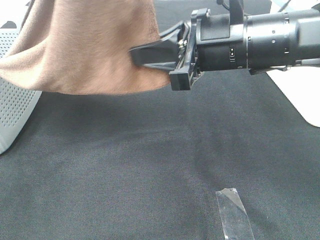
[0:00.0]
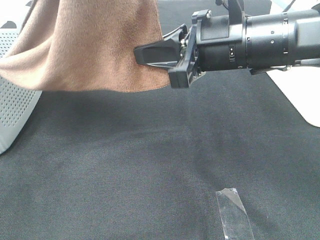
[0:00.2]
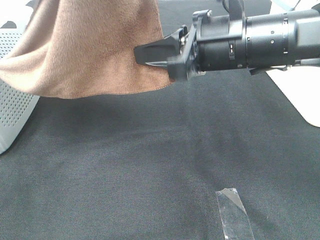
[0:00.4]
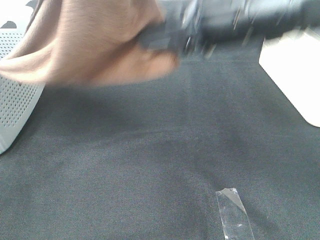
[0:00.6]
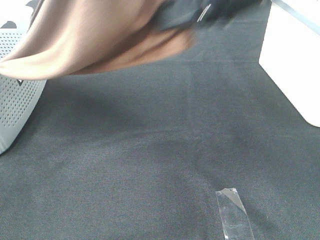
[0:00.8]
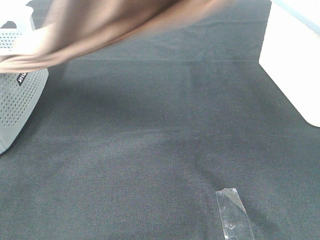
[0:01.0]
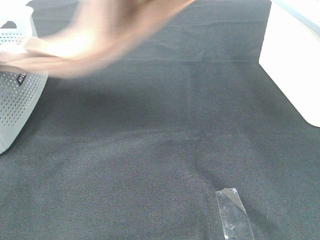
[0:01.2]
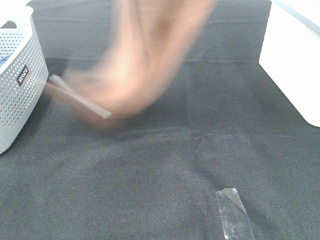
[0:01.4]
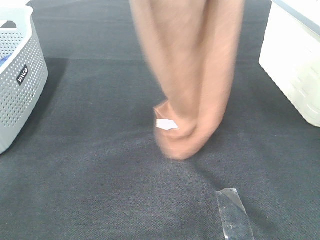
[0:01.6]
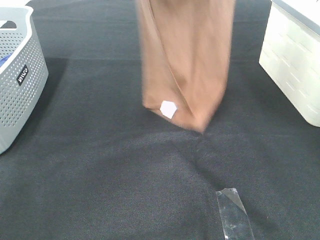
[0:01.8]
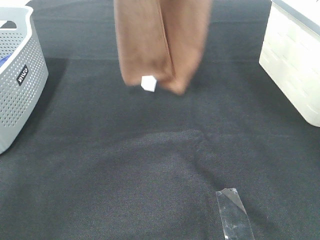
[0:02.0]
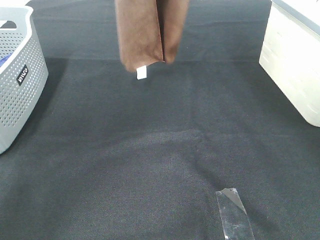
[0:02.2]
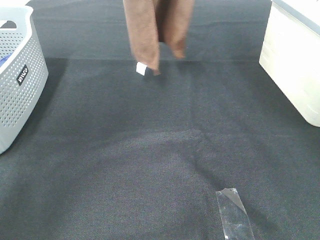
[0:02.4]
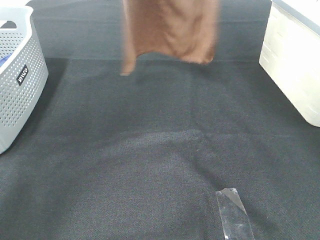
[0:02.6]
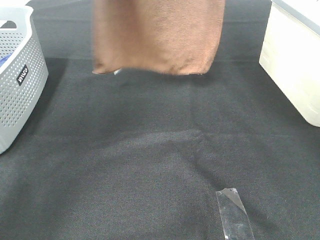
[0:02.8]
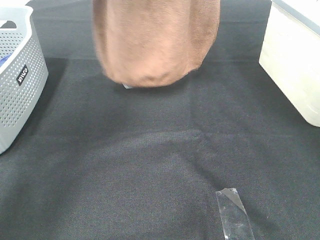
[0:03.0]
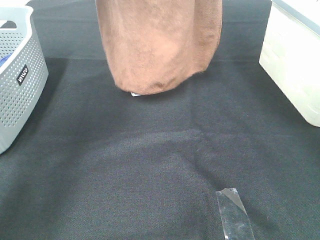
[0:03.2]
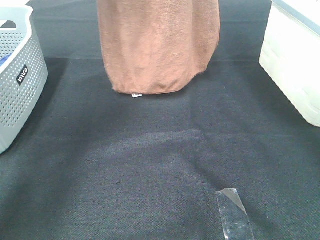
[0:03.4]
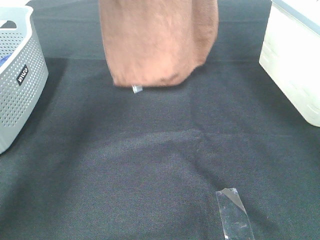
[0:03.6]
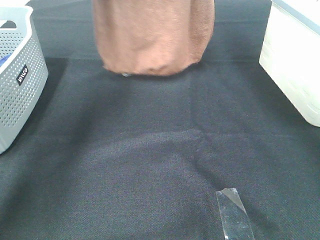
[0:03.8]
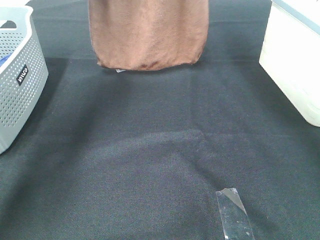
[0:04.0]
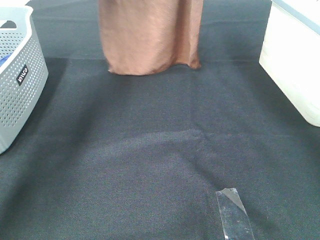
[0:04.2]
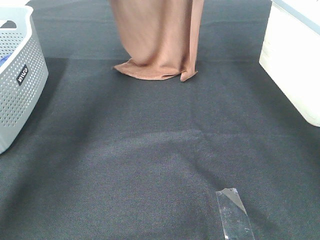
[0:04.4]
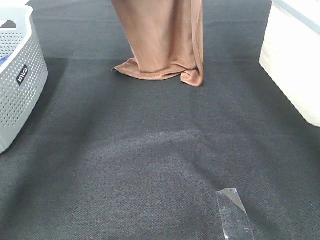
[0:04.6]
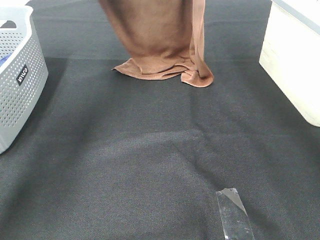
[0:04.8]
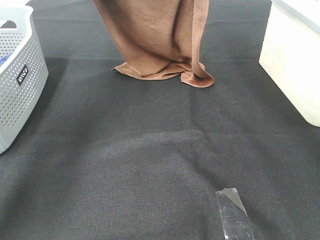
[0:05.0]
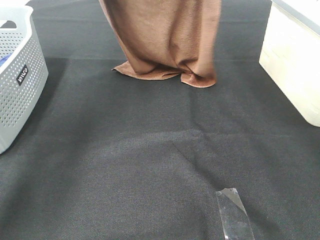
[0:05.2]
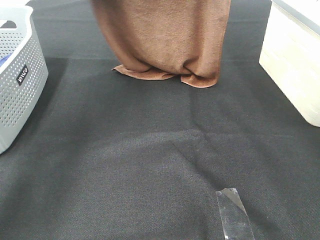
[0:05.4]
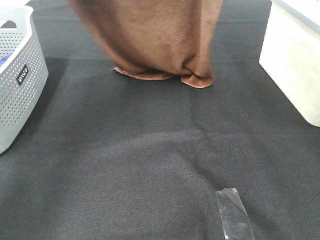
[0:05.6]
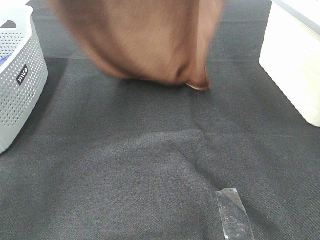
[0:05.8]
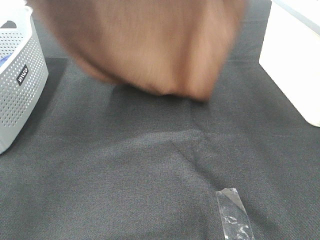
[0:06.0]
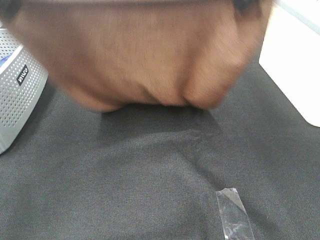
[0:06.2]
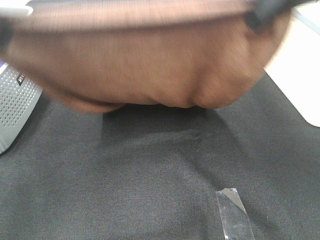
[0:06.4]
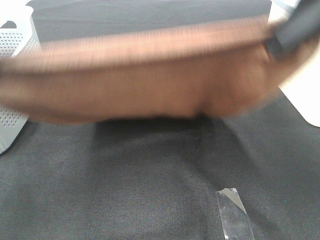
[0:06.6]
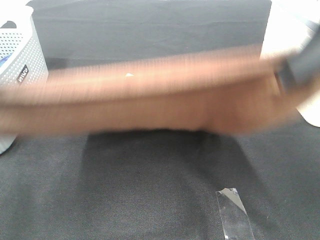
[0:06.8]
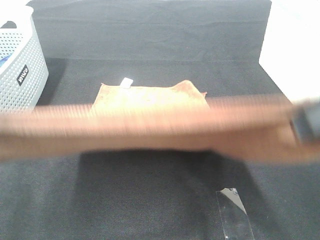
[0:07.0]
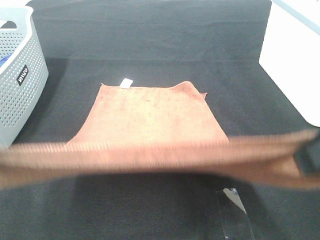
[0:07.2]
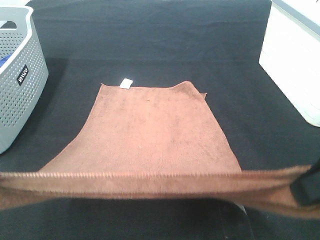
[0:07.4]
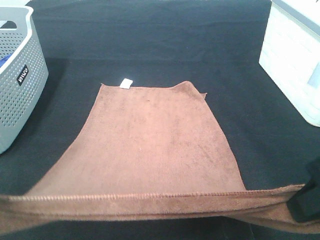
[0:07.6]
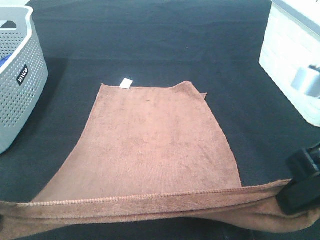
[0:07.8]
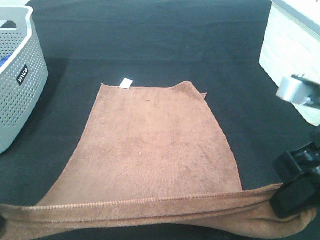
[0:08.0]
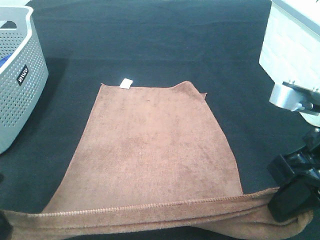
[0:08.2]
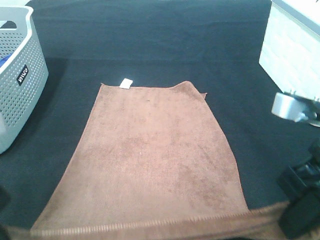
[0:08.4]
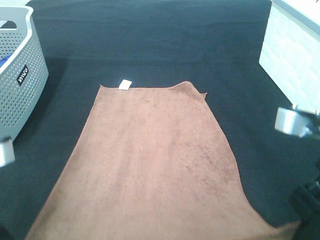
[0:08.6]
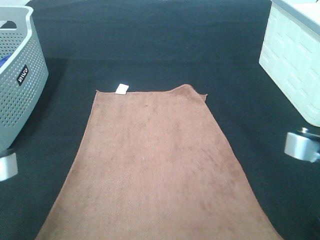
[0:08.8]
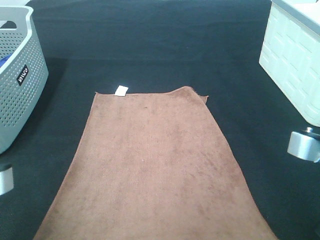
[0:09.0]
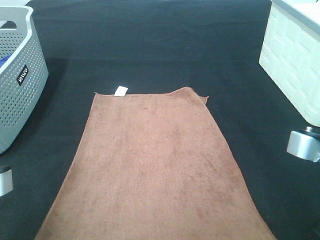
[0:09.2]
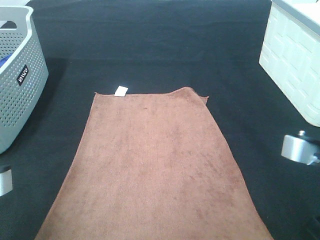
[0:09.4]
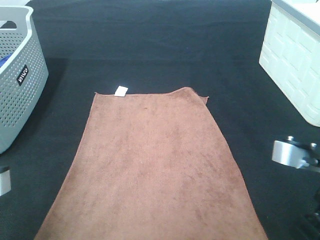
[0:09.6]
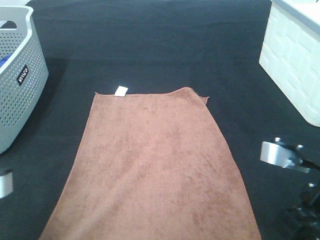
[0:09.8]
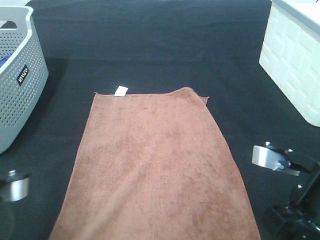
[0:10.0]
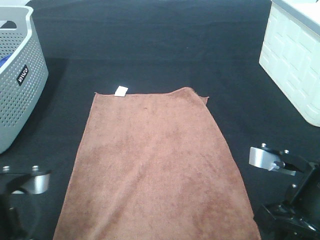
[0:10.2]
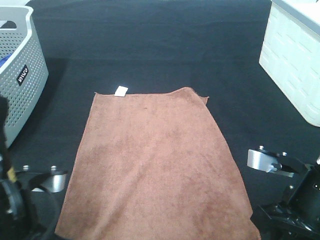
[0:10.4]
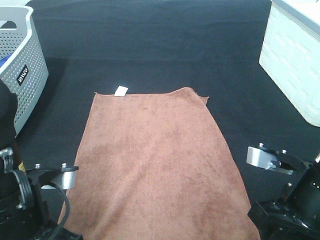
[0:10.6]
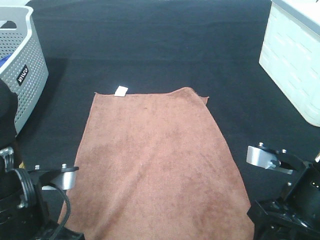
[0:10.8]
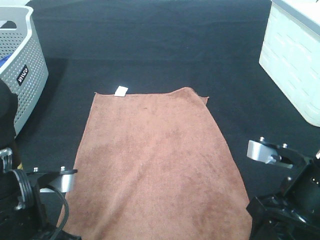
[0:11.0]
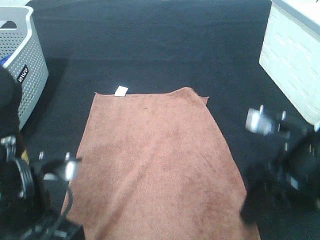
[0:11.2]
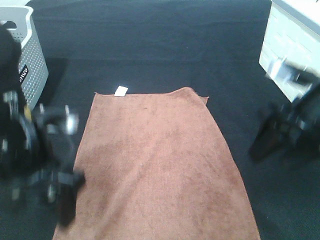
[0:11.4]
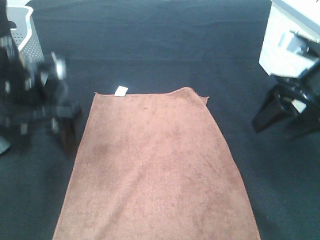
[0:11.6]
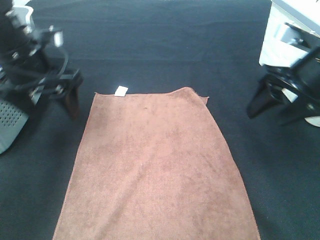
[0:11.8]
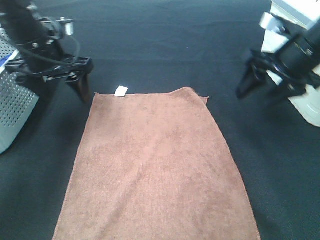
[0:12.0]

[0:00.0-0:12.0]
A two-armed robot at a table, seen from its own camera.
Task of the whole recording: Remove the towel and place it.
Step, 0.8 to 7.0 s: Left hand: spread the brown towel flat on the table.
Step, 0.8 to 7.0 s: Right hand: spread the brown towel flat on the table.
0.0 to 1.6 s: The right gripper moves upward, some 25 cm; the left gripper goes roughly 10 cm forward.
1.6 to 3.0 s: Both grippers travel together forward, some 10 cm.
3.0 to 4.4 s: The two grippers go approximately 15 cm downward and forward.
4.4 to 6.0 s: Both grippers move backward, roughly 20 cm.
6.0 to 7.6 s: Both grippers travel together backward and downward, some 25 cm.
7.6 to 9.0 s: The left gripper goes roughly 5 cm downward.
9.0 to 10.4 s: The right gripper heads downward, covering about 5 cm. The left gripper goes roughly 10 cm downward and forward.
10.4 to 12.0 s: Both grippers travel together forward, some 20 cm. The left gripper opens up, while the right gripper opens its fingers.

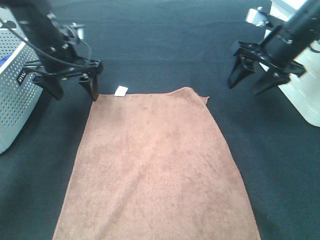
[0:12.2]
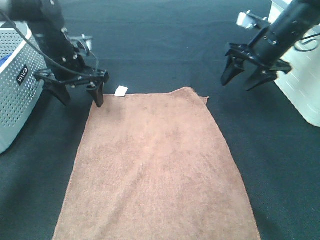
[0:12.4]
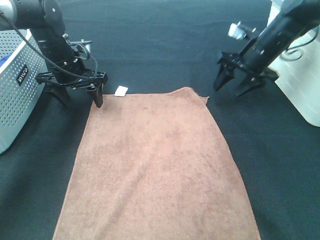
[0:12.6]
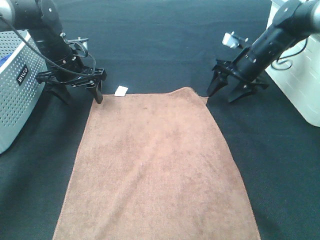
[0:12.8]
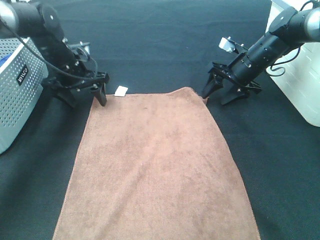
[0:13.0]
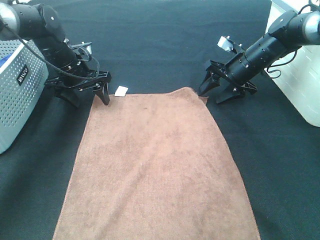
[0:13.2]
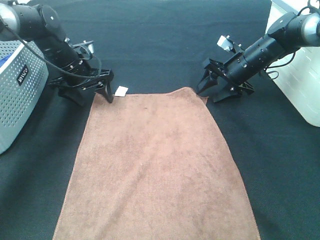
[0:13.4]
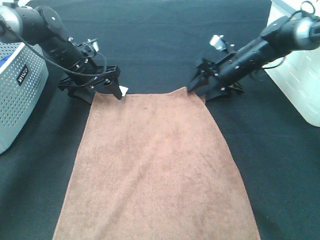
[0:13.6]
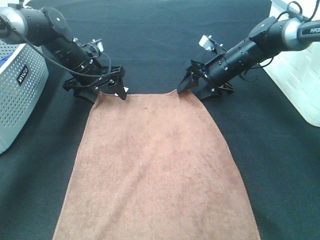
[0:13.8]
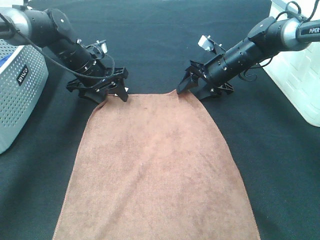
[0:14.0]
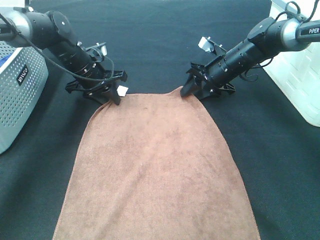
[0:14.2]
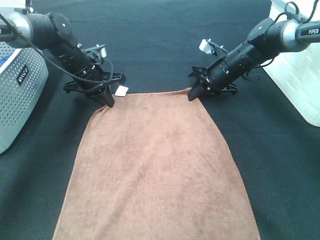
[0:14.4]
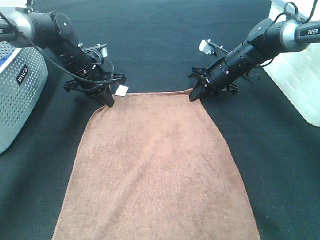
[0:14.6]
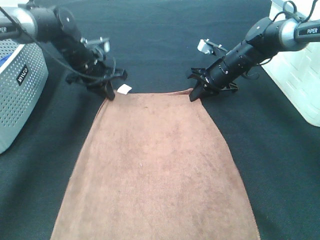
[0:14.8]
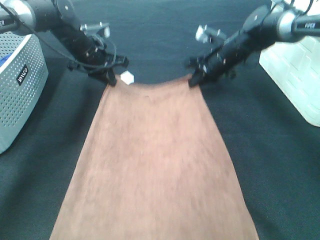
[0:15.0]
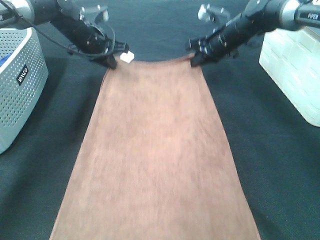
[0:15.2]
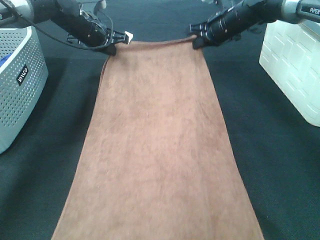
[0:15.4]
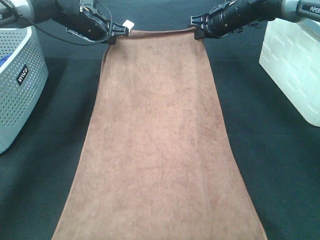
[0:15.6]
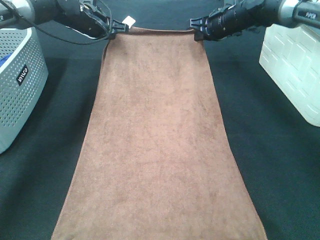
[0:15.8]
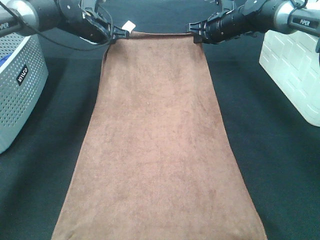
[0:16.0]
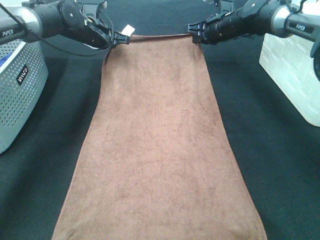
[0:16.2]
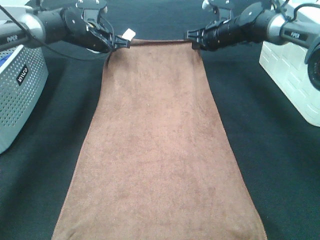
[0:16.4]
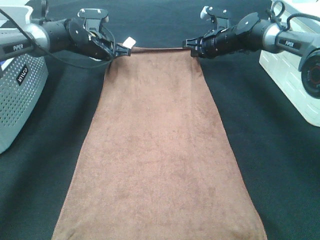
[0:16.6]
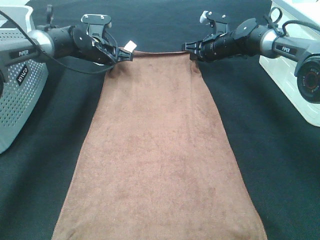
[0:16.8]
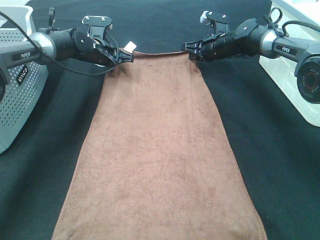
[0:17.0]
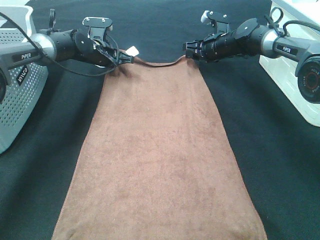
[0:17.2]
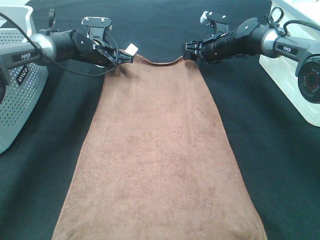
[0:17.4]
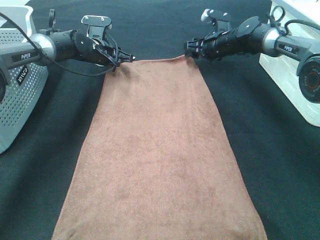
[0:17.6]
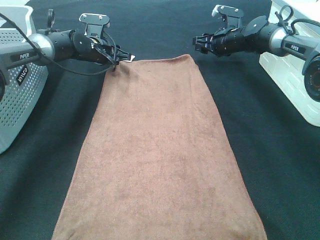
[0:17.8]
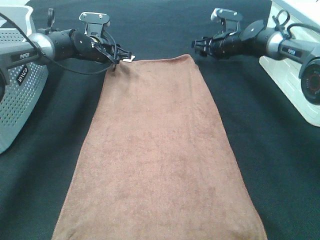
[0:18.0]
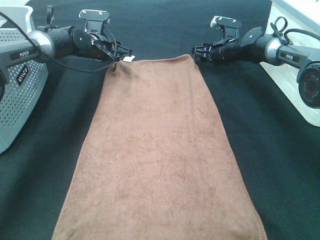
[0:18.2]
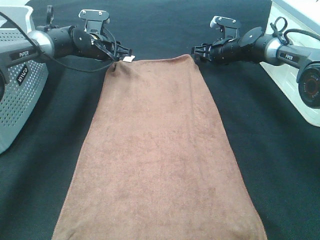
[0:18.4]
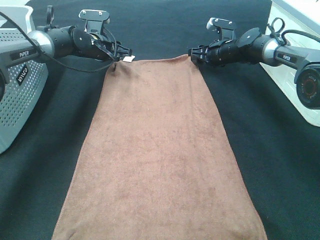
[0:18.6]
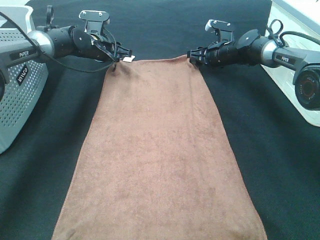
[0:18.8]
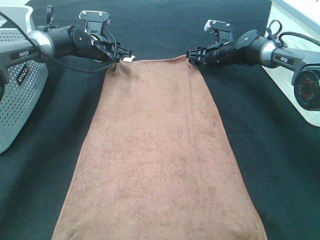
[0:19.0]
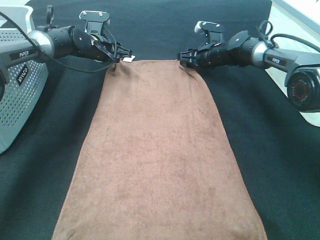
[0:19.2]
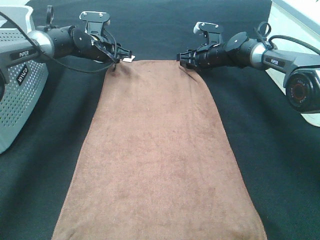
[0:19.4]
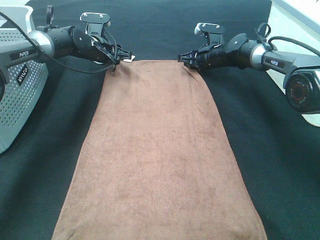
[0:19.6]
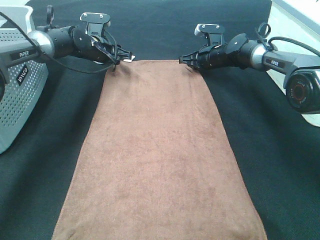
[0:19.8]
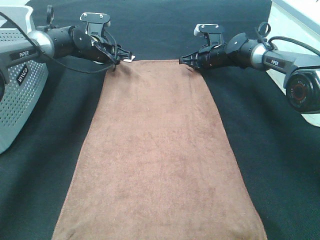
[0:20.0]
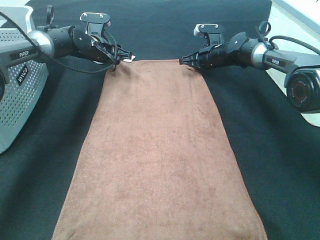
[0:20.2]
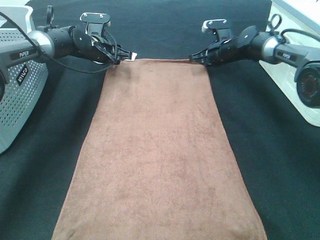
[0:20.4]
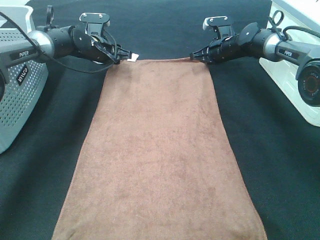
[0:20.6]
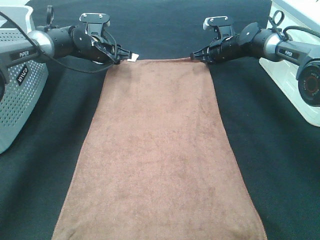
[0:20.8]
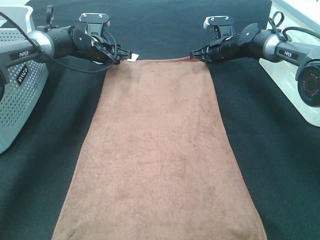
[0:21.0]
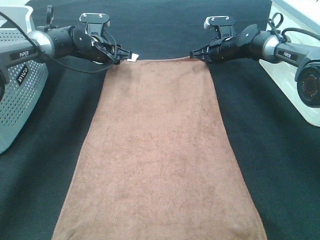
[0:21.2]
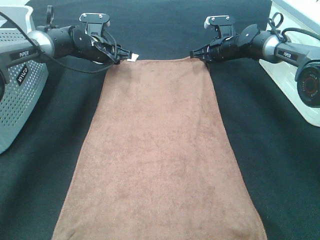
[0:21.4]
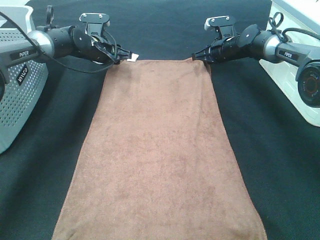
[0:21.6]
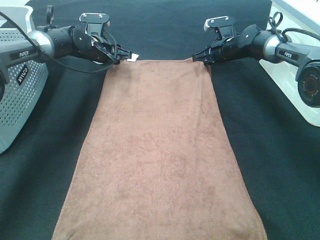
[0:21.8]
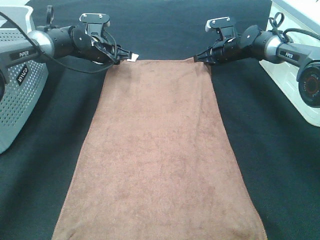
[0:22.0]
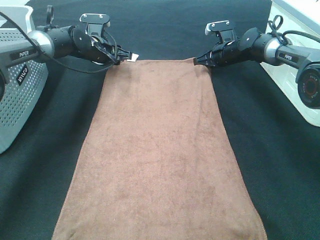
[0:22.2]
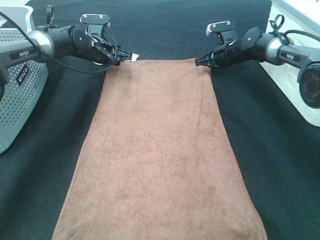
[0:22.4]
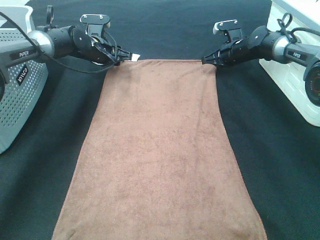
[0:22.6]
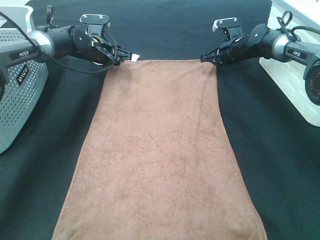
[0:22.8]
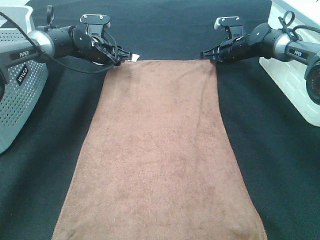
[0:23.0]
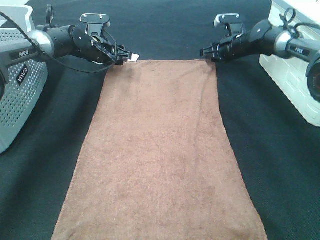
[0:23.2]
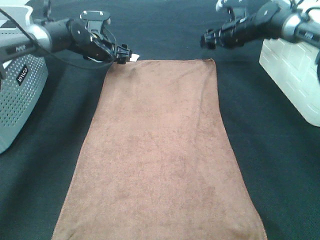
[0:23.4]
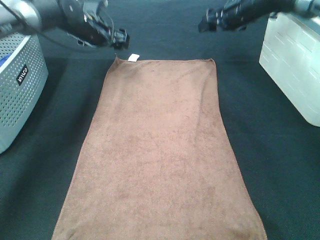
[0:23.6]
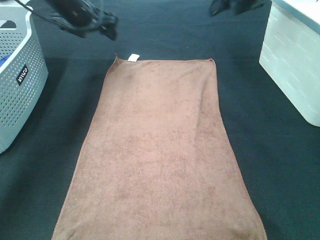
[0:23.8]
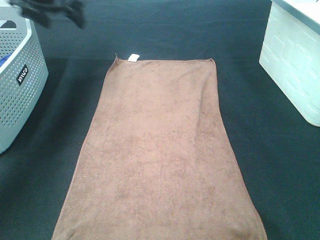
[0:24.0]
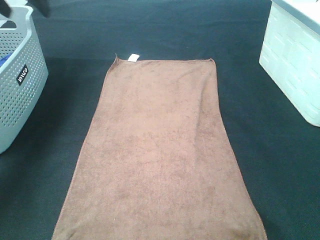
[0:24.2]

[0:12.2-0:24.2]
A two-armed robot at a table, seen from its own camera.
Task of the whole recording: Remove the towel and place it.
Step, 12.2 to 17.2 s: Right hand:adjust the brown towel.
12.2 to 13.8 s: The right gripper shifts some 15 cm downward, forward and to the left; the left gripper heads downward and forward, covering approximately 10 cm.
13.8 to 15.2 s: Both grippers move upward, roughly 5 cm. The right gripper closes up; the left gripper closes up.
15.2 to 16.6 s: The left gripper is displaced downward by approximately 5 cm. Meanwhile the right gripper moves about 5 cm.
16.6 to 18.2 s: The right gripper opens. Meanwhile the left gripper opens its fingers.
18.2 to 19.8 s: The right gripper closes up.
19.8 to 22.6 s: There are only small adjustments of the grippers.
22.6 to 24.2 s: The right gripper travels upward and backward by some 35 cm, and opens up, while the left gripper heads upward and to the left, covering about 25 cm.
